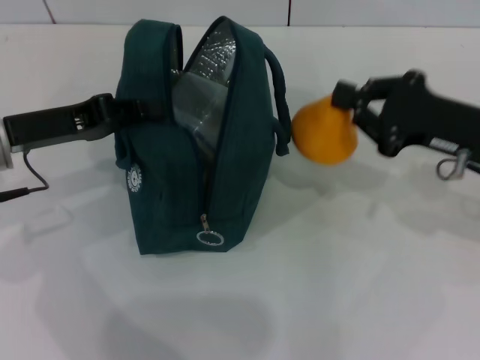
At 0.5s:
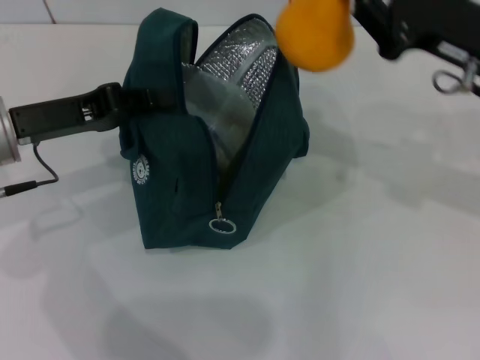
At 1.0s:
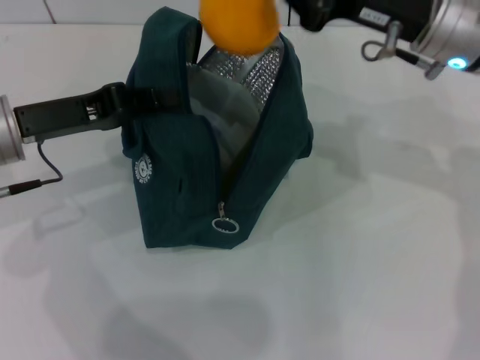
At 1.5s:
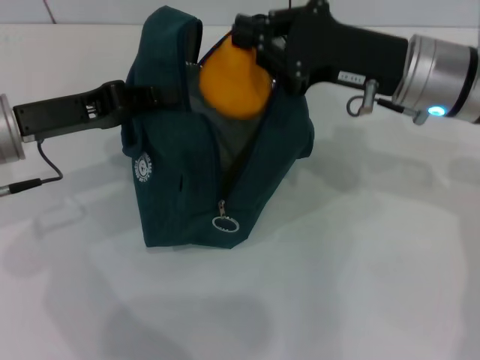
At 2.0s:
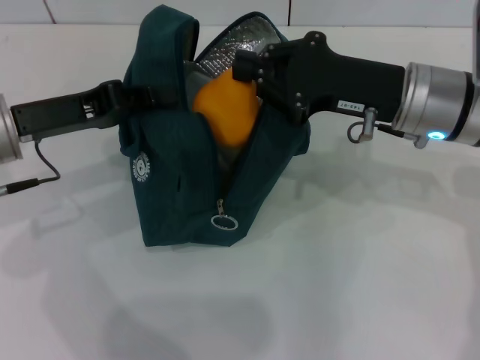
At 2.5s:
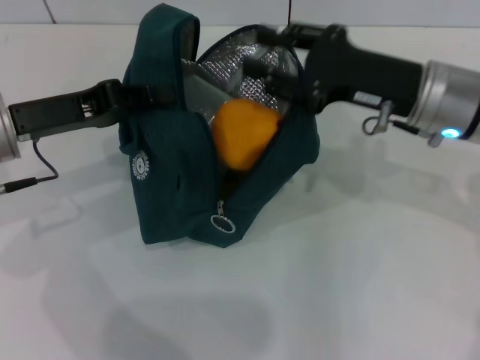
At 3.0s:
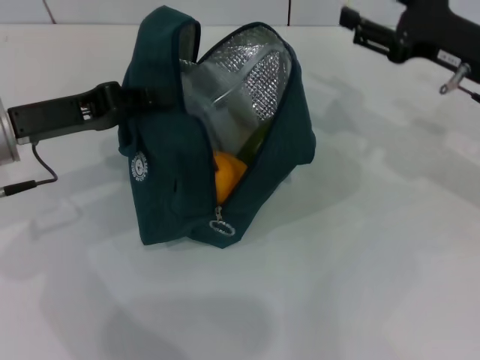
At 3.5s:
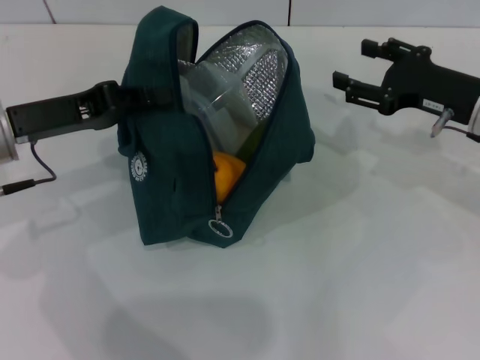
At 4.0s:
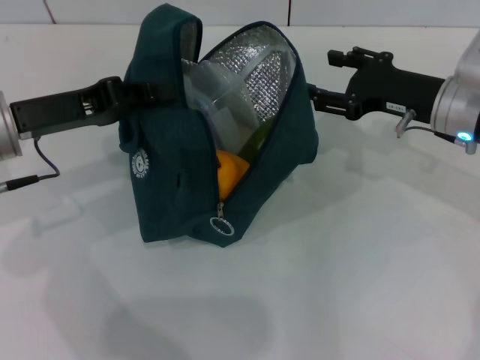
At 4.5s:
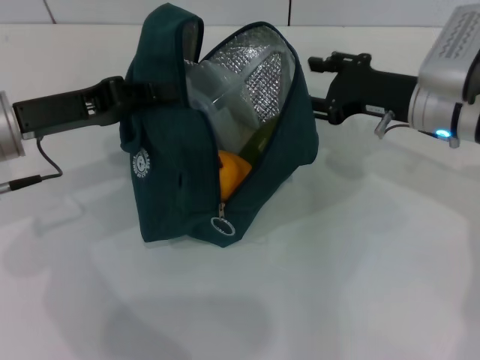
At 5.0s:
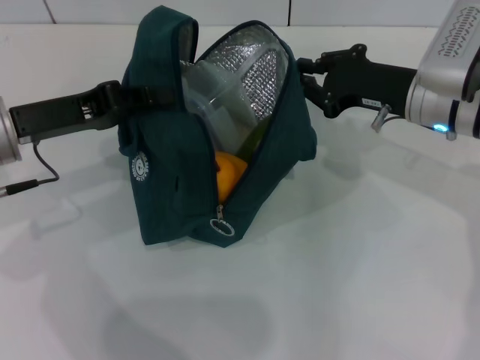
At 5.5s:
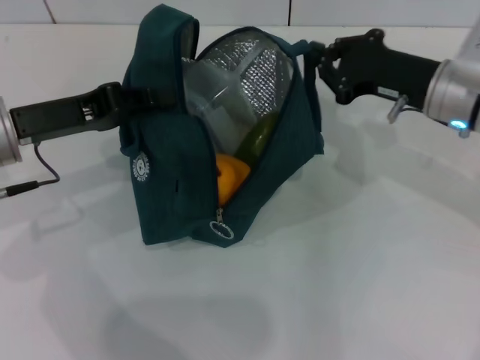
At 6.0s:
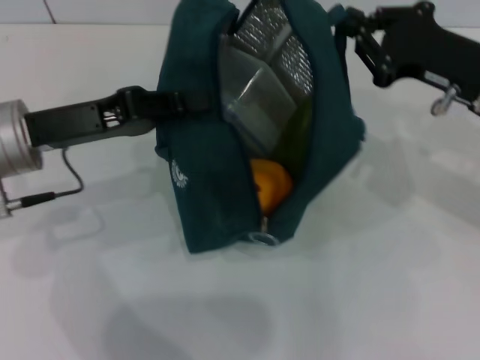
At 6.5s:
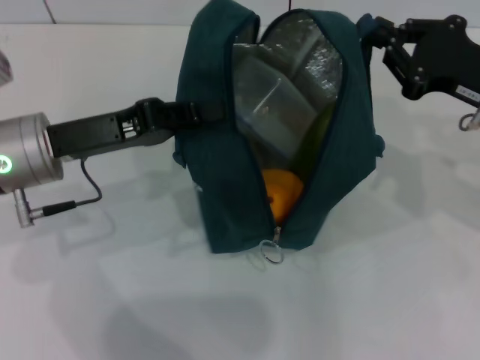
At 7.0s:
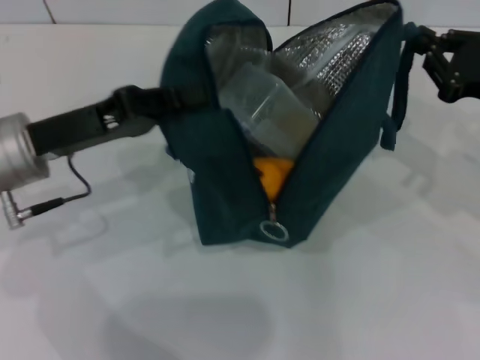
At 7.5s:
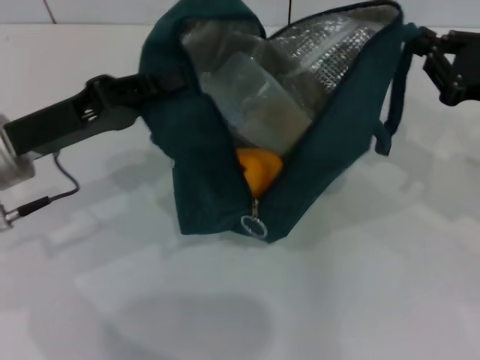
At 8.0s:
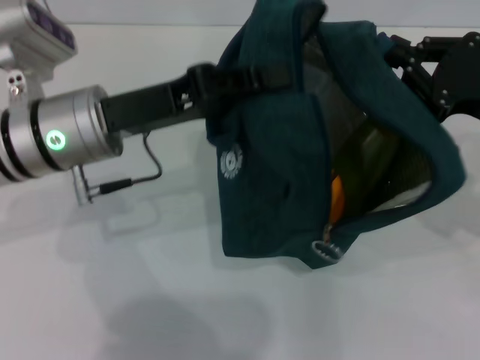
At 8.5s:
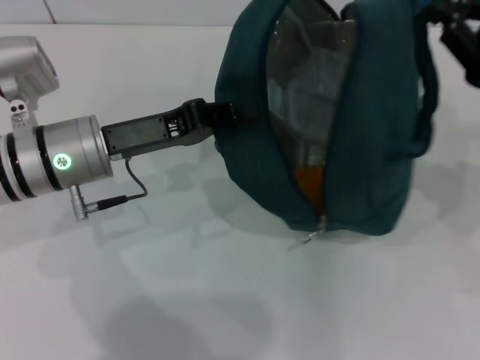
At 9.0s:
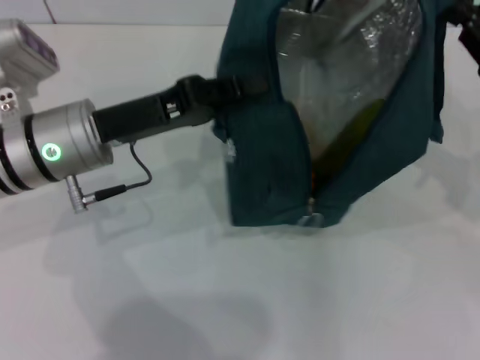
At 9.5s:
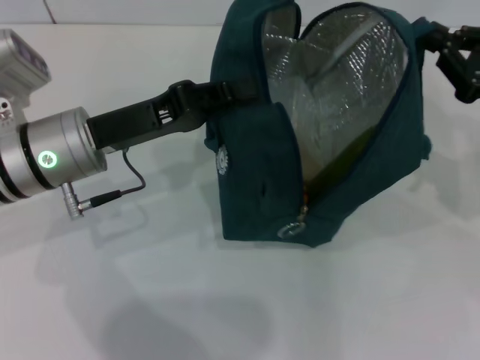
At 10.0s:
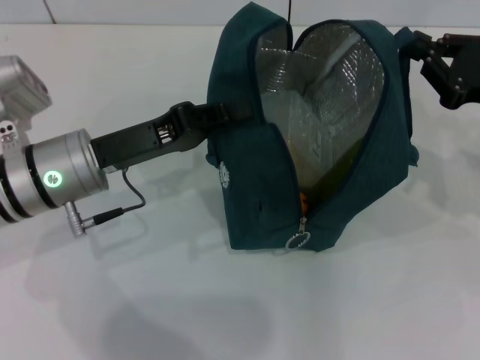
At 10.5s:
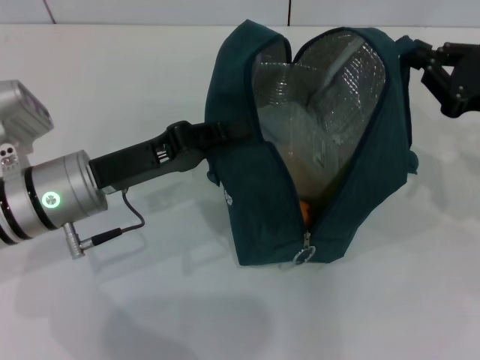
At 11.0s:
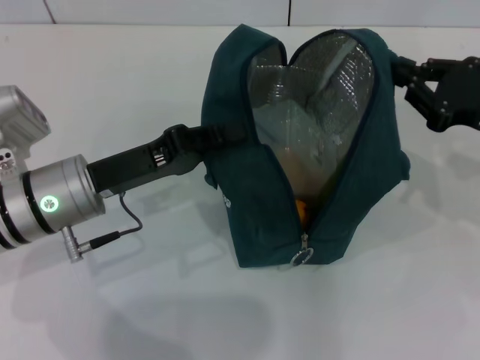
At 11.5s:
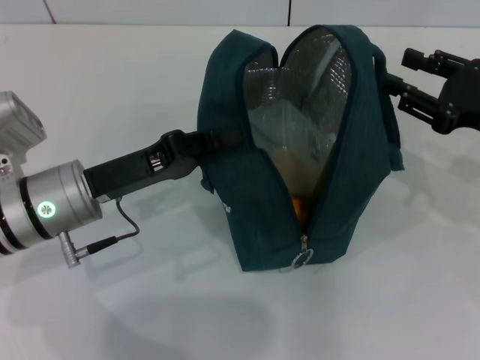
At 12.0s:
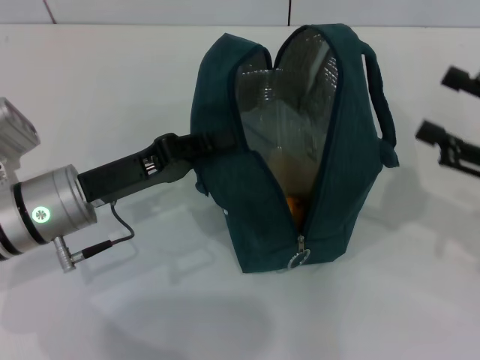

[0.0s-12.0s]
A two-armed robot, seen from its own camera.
Step, 3.0s to 11.5s: Hold the lunch bag with your right hand.
0.0s to 2.0s: The right gripper heads to the left, covering about 10 cm.
2.0s to 4.0s: The right gripper is displaced to the right by roughly 5 cm, and opens.
4.0s to 6.0s: The right gripper changes place by approximately 5 cm, and closes.
6.0s to 8.0s: The right gripper ends up roughly 5 cm from where it was. Meanwhile the left gripper shifts about 5 cm to the right.
10.0s to 12.0s: The right gripper travels backward by approximately 5 cm, and opens its fingers.

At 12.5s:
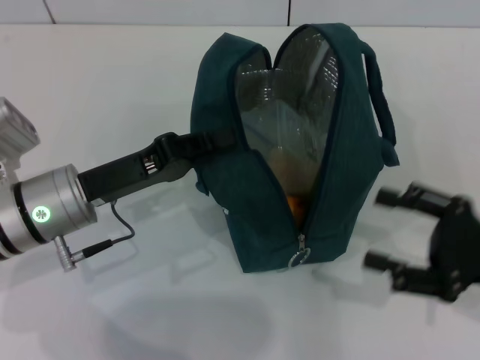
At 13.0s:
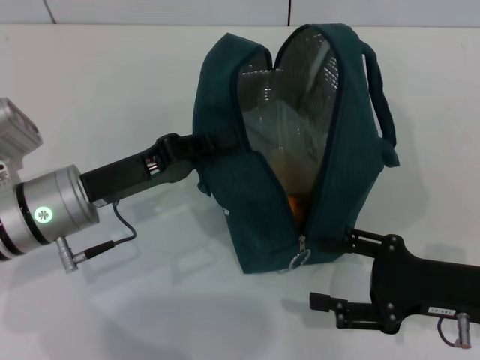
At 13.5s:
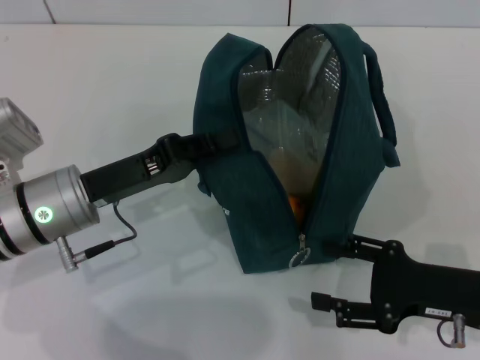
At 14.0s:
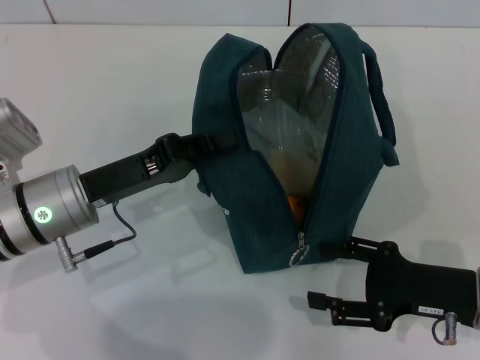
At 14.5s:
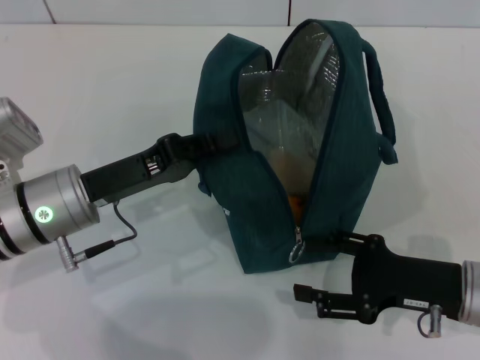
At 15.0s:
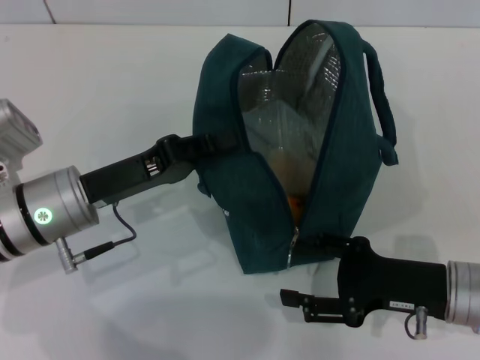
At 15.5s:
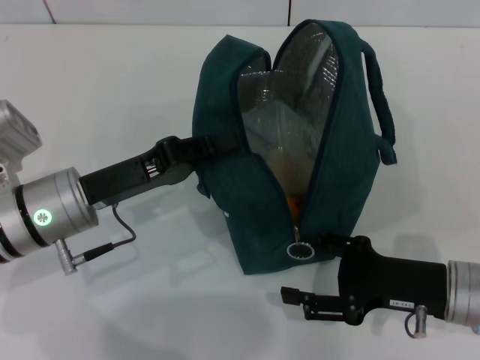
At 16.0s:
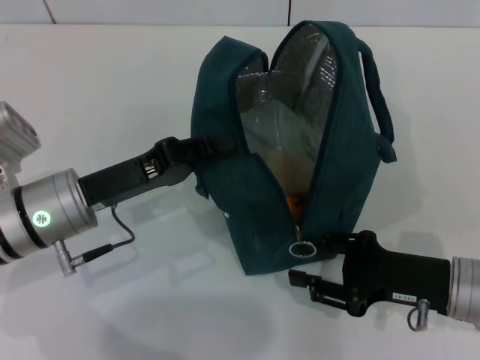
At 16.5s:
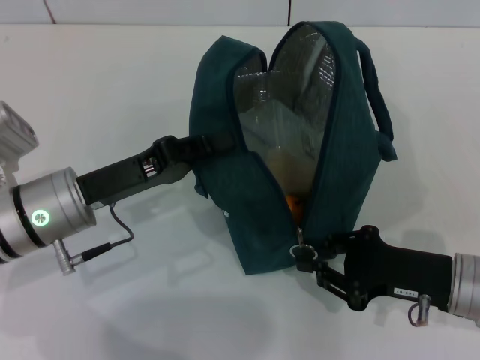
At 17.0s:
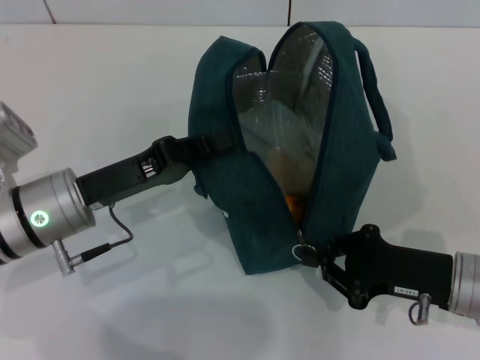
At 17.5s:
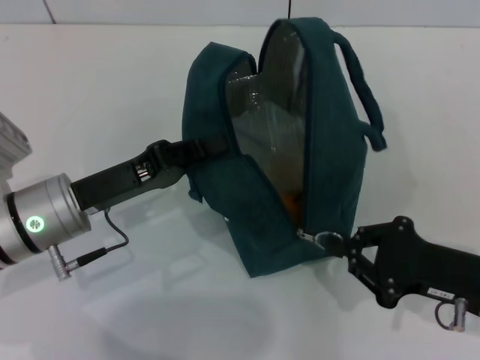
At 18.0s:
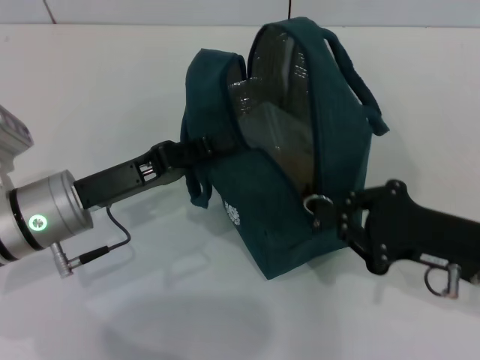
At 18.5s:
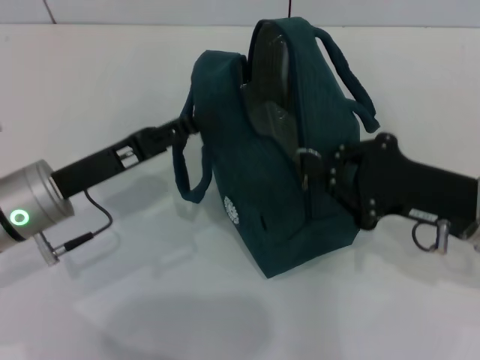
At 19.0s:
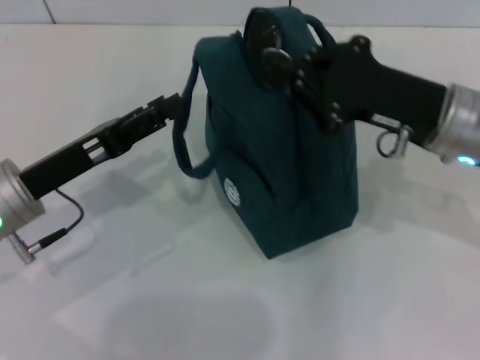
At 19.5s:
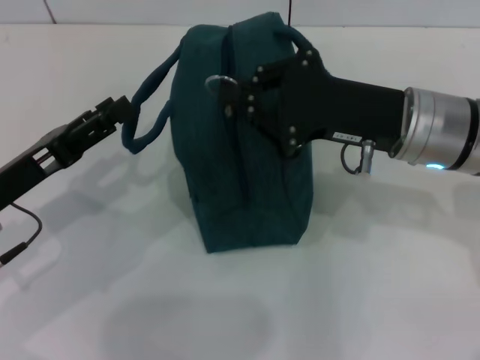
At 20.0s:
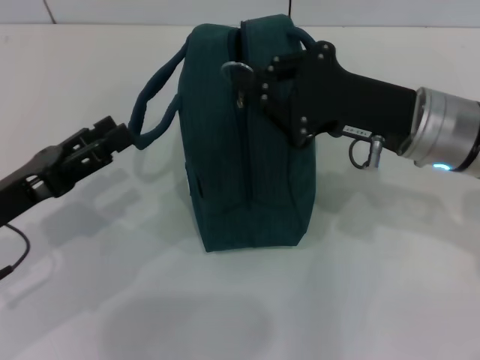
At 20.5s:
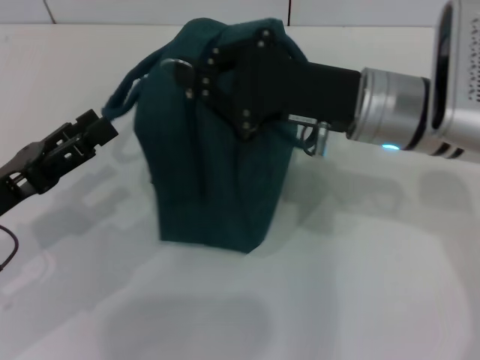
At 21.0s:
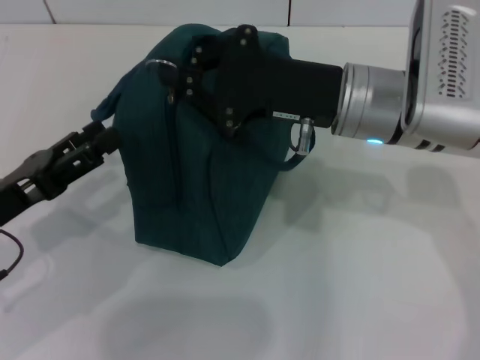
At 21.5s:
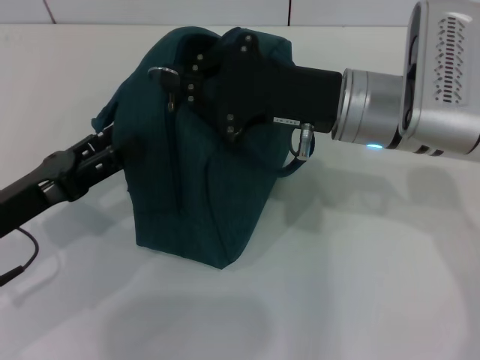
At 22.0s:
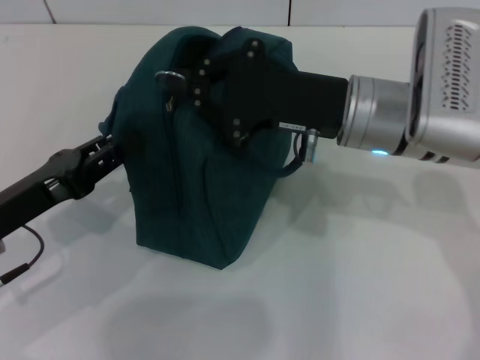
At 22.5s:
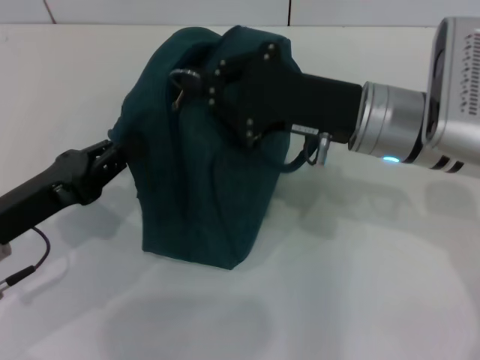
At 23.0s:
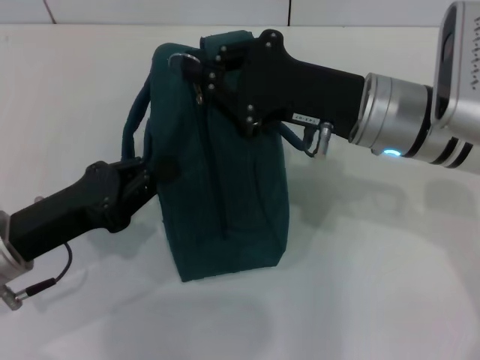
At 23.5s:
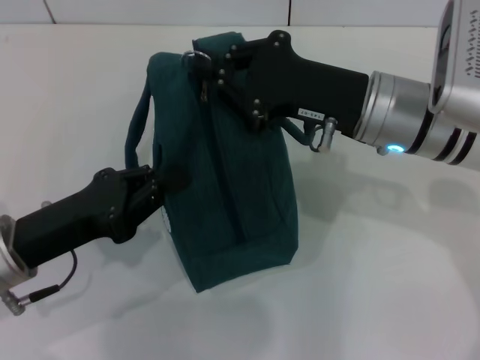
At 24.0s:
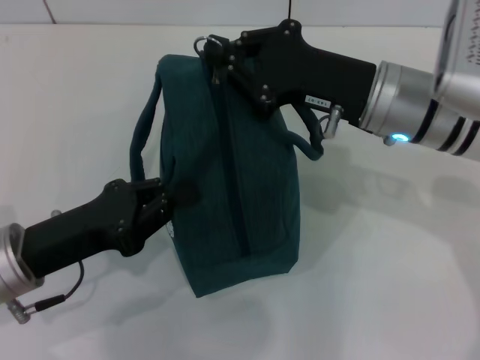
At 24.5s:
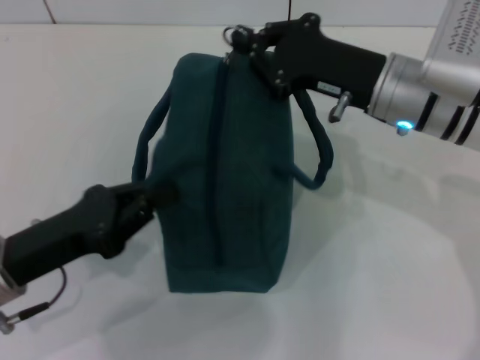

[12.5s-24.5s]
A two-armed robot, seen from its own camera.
Step, 12.5s to 18.5s: Hold the lunch bag with your left hand.
12.5s to 14.5s: The right gripper shifts about 5 cm to the left.
14.5s to 16.5s: The right gripper closes up.
16.5s to 18.5s: The right gripper goes some 5 cm upward, while the left gripper opens.
18.5s to 20.5s: The left gripper travels to the left and backward by approximately 10 cm, and opens its fingers. The right gripper travels to the left, upward and forward by approximately 15 cm.
20.5s to 22.5s: The left gripper closes up.

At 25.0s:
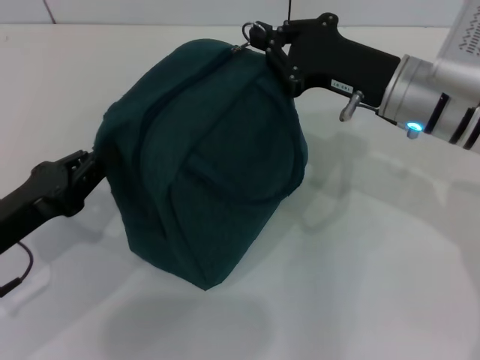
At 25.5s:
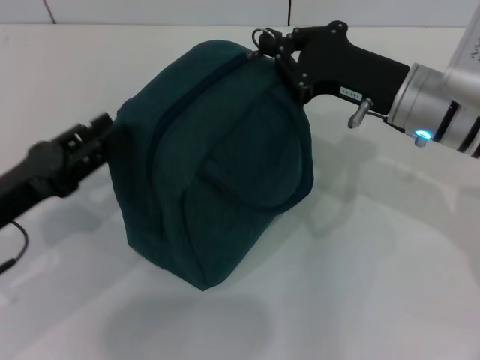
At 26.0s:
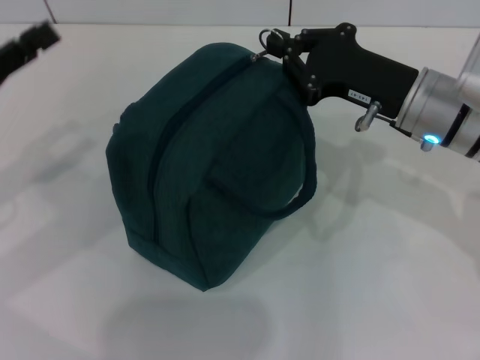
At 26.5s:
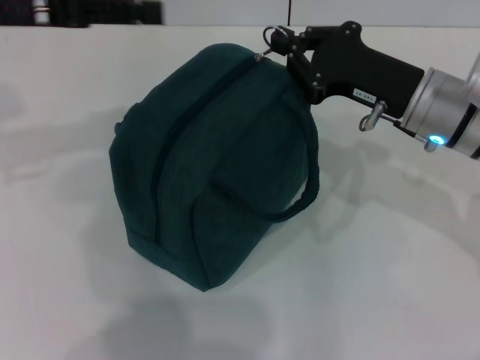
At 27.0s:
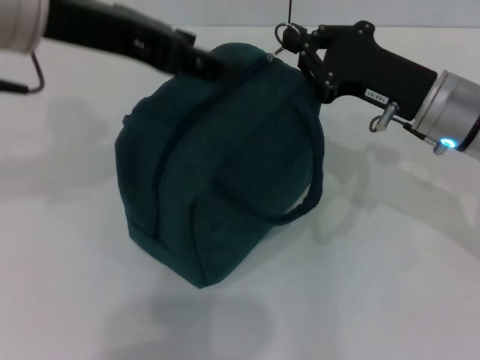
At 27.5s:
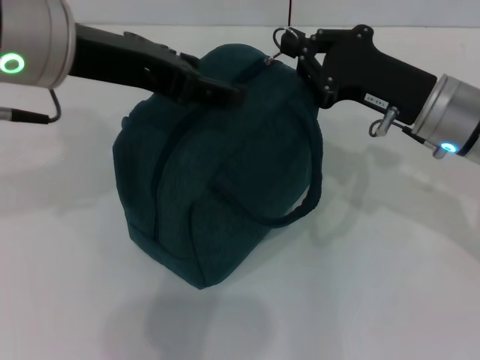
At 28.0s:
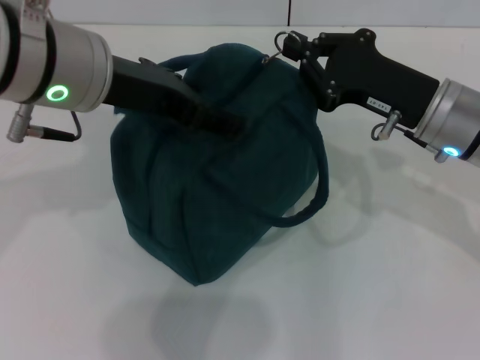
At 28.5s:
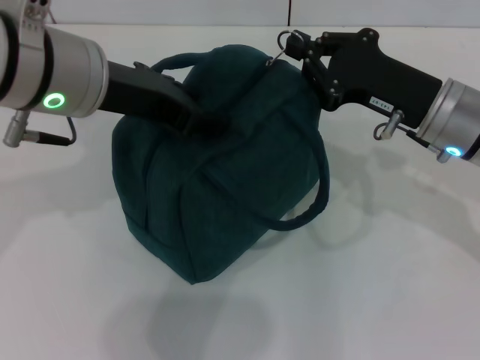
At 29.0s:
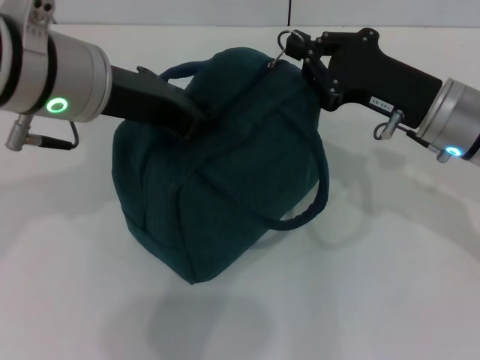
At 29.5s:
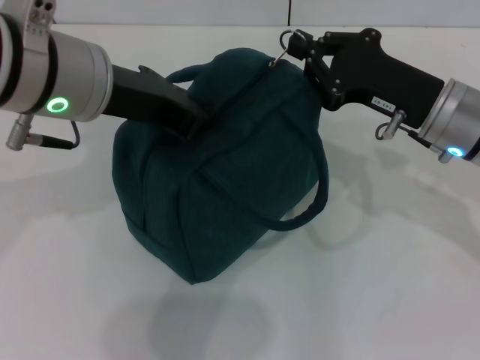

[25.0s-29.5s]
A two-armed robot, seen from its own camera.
25.0s to 27.0s: The left gripper shifts approximately 25 cm upward, to the right and forward, and opens its fingers.
27.0s to 29.5s: The left gripper is displaced downward by roughly 5 cm, and closes its fingers.
